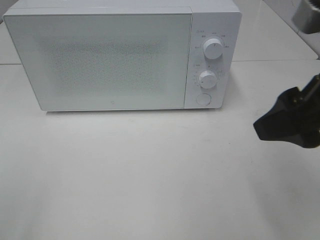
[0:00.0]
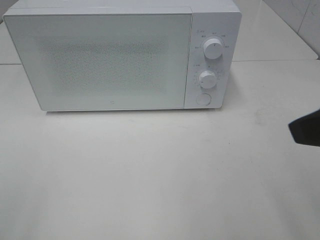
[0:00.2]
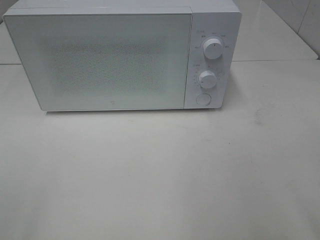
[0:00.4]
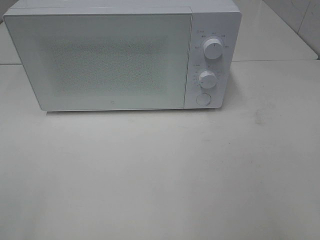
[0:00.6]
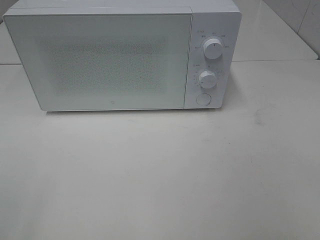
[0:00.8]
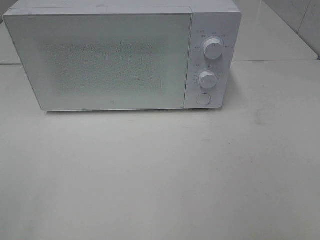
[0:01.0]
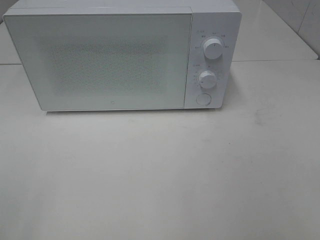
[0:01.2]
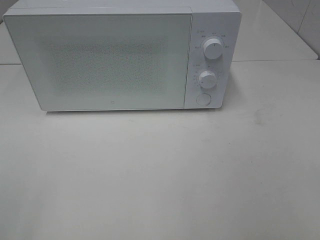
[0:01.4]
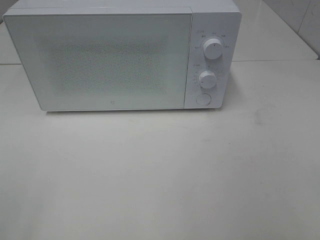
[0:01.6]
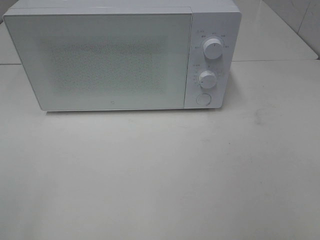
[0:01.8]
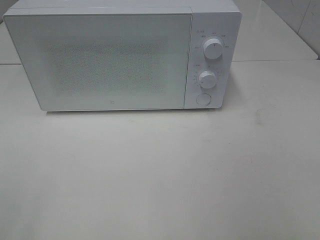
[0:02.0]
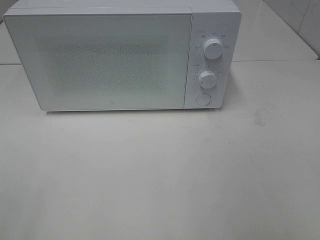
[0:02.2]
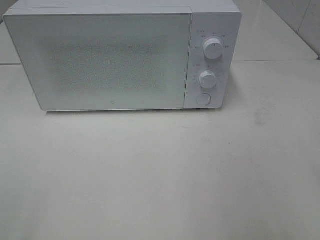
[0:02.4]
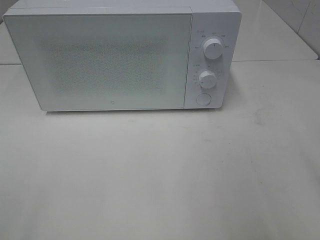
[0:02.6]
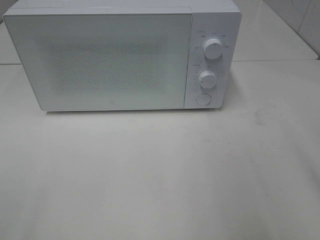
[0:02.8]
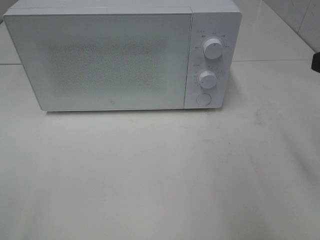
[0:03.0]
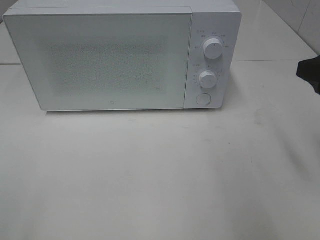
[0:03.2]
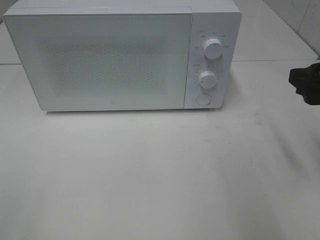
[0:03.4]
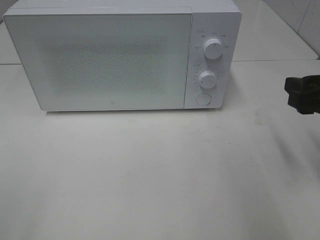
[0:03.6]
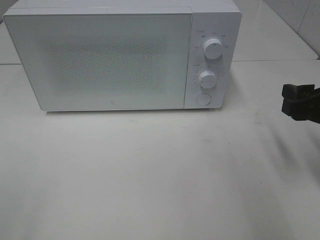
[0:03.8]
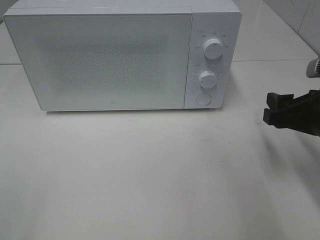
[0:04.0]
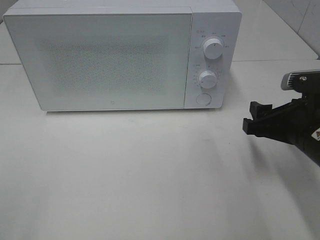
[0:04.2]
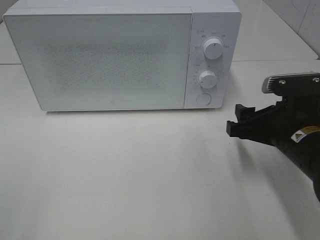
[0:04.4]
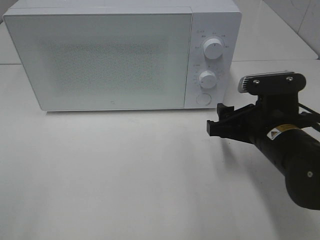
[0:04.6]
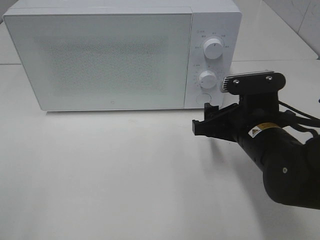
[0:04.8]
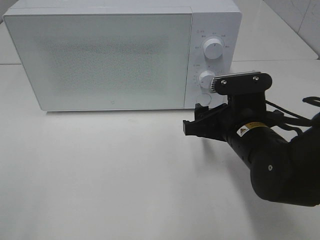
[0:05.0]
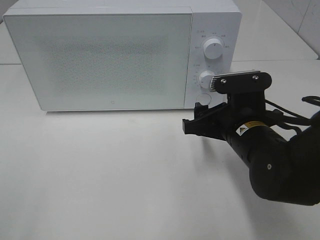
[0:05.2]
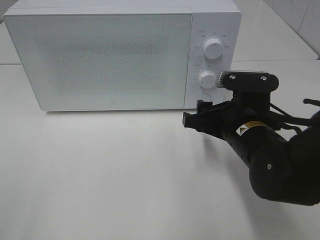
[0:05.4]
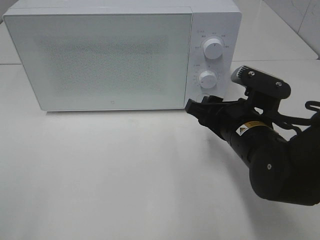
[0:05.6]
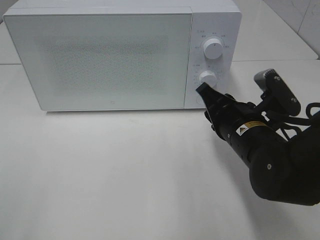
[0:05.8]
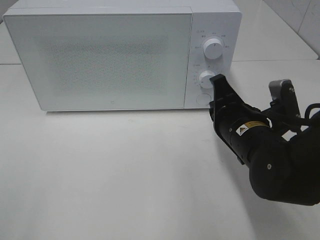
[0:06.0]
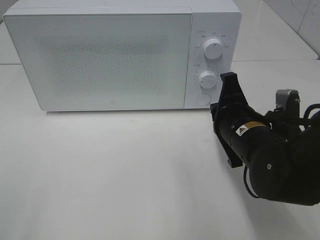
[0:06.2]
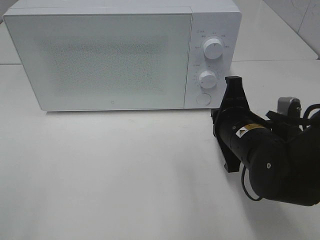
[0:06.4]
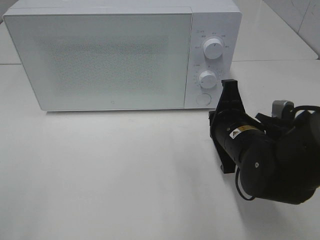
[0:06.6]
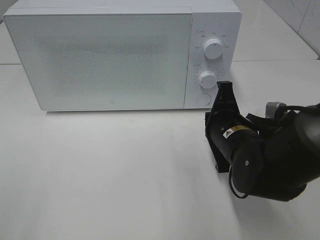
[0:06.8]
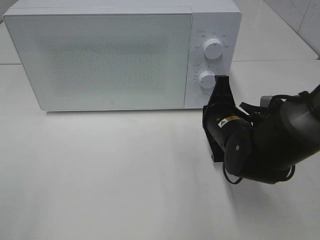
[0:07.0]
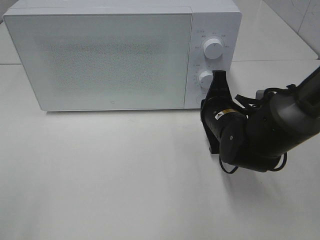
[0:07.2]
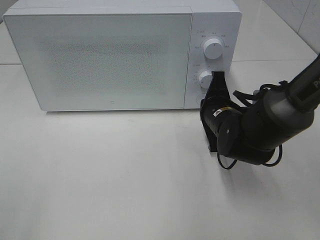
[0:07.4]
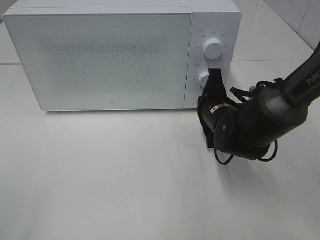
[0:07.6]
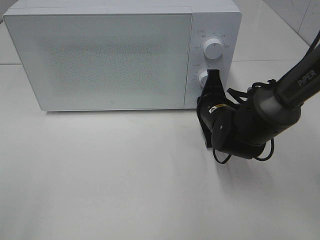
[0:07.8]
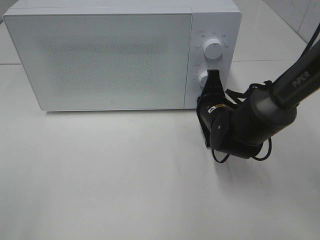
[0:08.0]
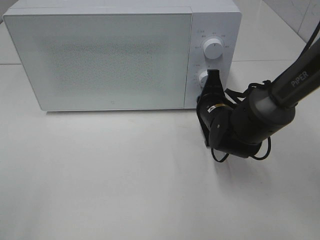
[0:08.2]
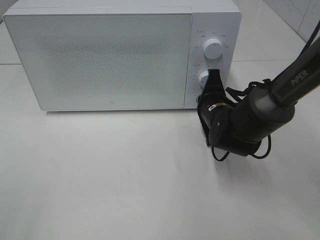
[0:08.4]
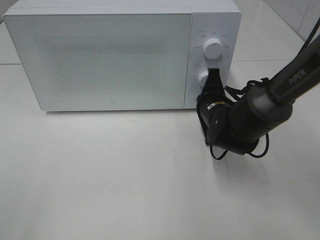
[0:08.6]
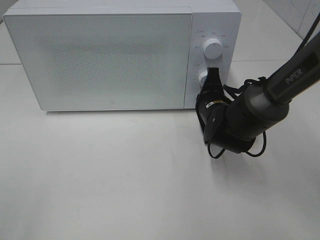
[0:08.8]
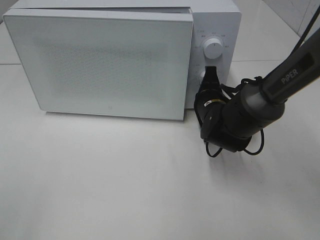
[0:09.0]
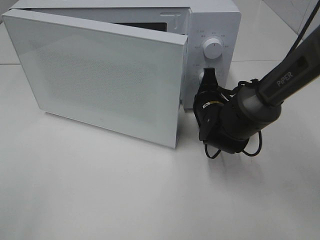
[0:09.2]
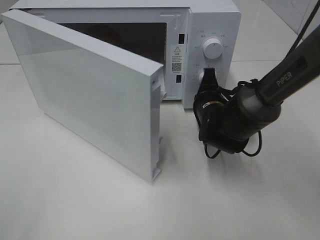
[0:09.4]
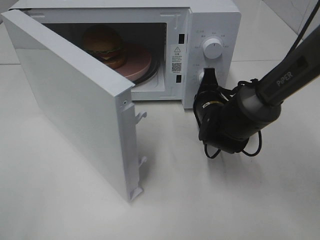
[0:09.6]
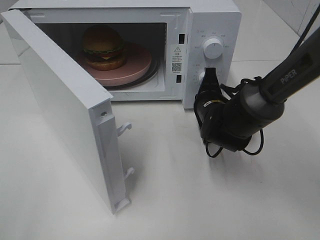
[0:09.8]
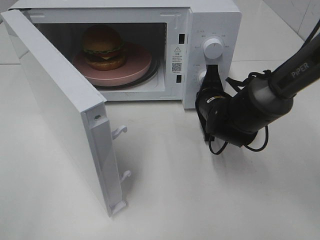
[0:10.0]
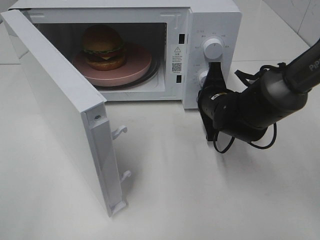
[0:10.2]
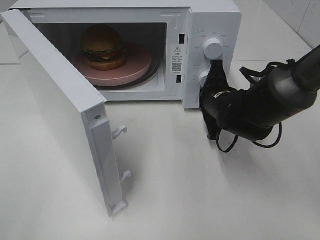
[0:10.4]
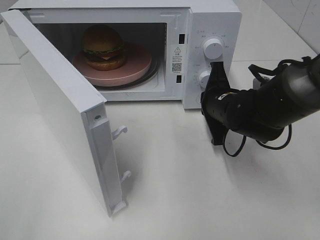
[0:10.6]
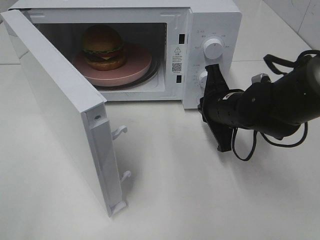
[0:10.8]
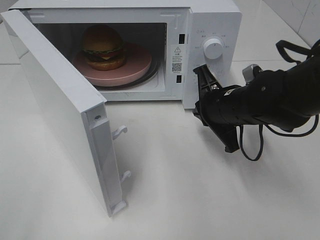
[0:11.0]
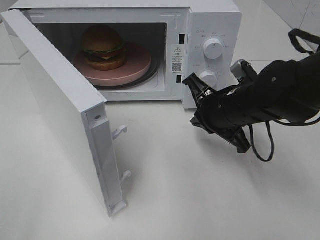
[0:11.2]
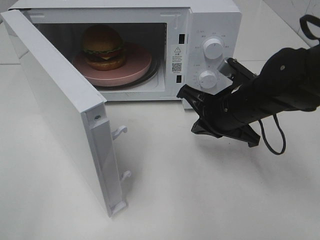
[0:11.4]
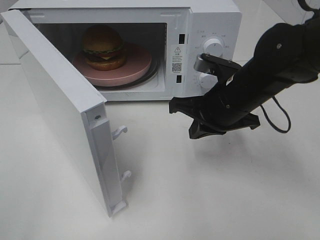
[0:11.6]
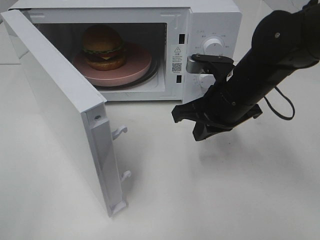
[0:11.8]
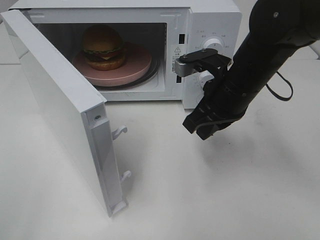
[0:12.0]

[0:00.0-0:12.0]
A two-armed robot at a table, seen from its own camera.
Task of the whole recording: Heat the burger.
Step, 0:00.0 to 0:10.4: Right hand: press the switch.
0:00.0 to 0:01.6: The right gripper travels backward and to the right by some 20 cm.
0:03.0 to 0:04.4: The right gripper shifts some 15 cm downward and to the left.
0:04.4 to 0:06.0: The right gripper goes about 5 cm to the left, and closes.
0:06.0 to 0:07.6: The right gripper is displaced forward by roughly 10 cm.
0:07.6 to 0:09.0: There are only small adjustments of the grippers.
0:10.4 to 0:12.0: The right gripper heads upward, covering some 10 cm.

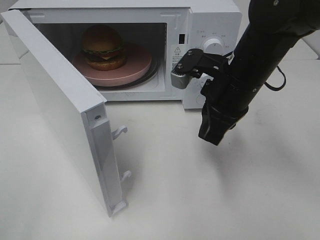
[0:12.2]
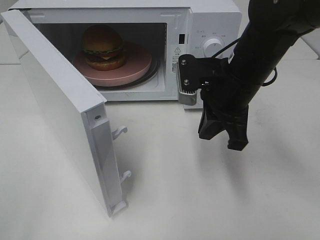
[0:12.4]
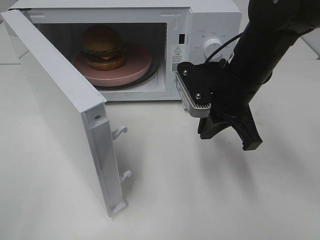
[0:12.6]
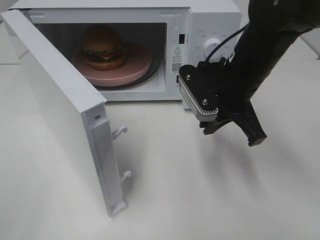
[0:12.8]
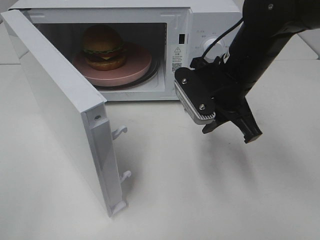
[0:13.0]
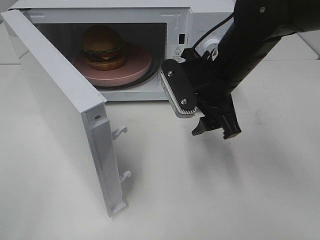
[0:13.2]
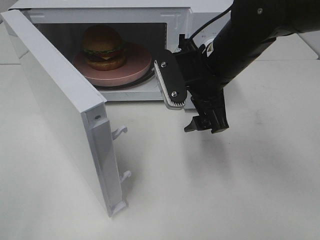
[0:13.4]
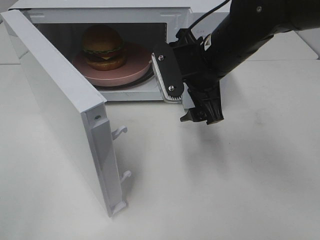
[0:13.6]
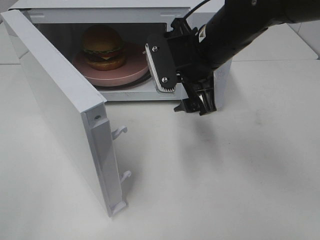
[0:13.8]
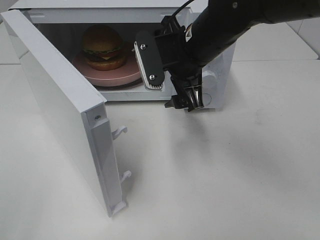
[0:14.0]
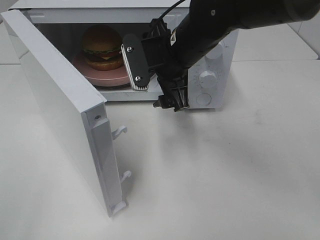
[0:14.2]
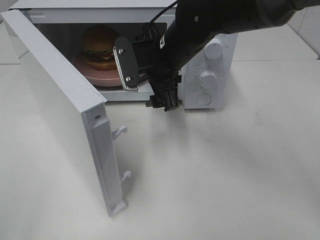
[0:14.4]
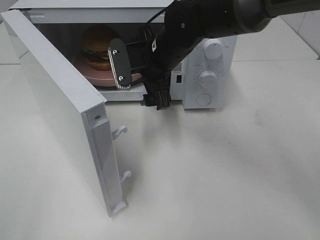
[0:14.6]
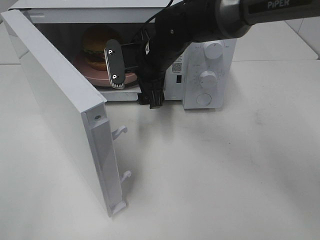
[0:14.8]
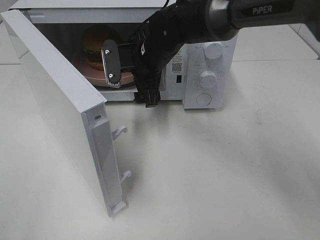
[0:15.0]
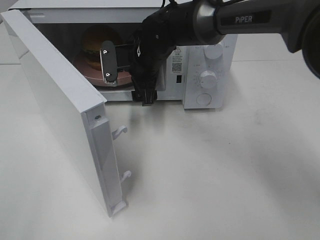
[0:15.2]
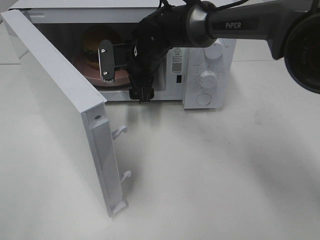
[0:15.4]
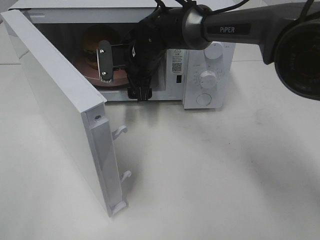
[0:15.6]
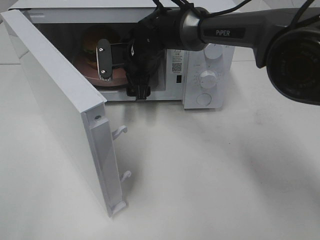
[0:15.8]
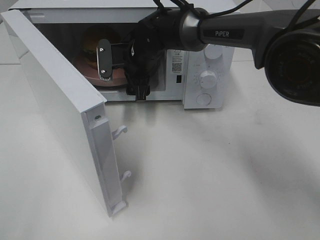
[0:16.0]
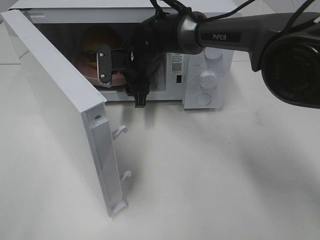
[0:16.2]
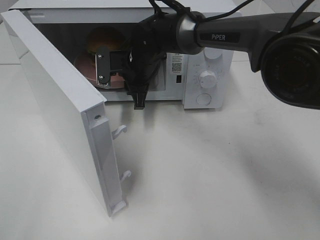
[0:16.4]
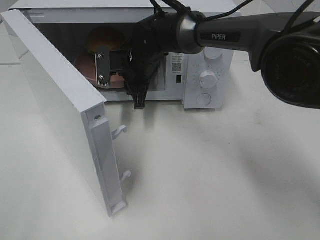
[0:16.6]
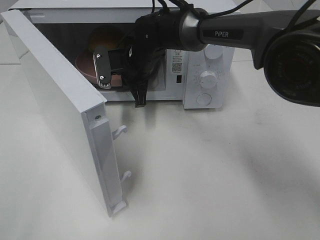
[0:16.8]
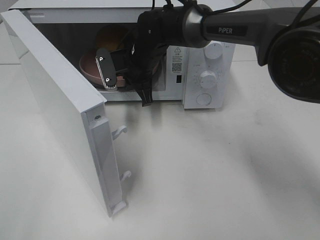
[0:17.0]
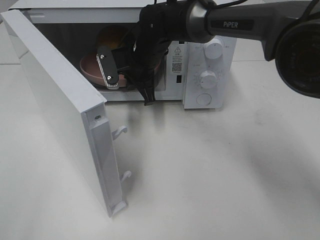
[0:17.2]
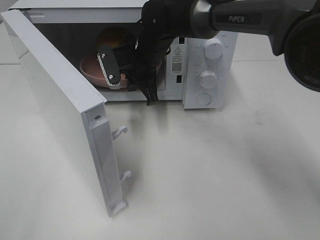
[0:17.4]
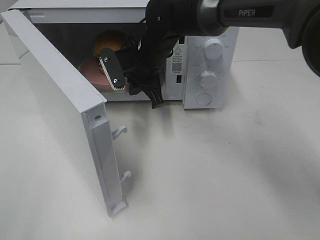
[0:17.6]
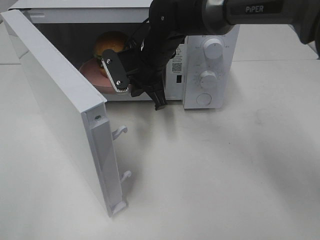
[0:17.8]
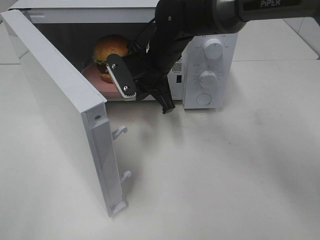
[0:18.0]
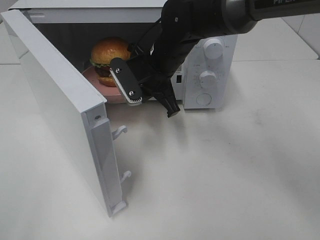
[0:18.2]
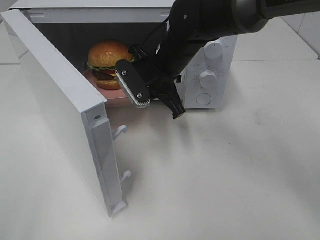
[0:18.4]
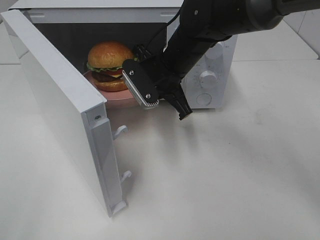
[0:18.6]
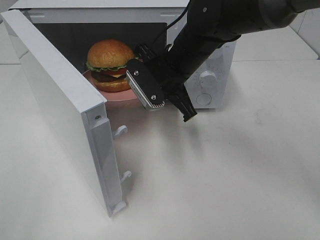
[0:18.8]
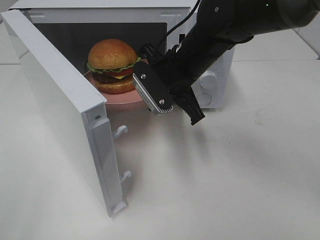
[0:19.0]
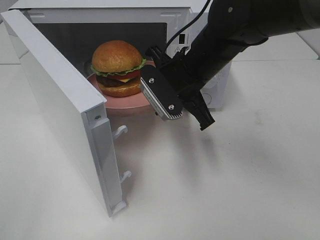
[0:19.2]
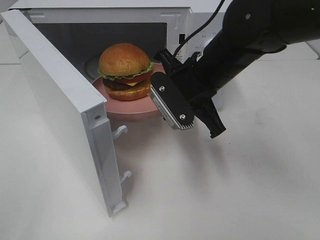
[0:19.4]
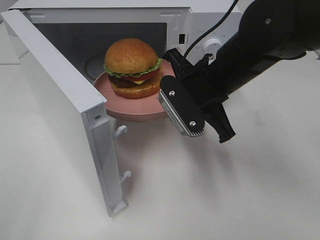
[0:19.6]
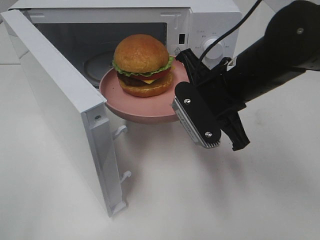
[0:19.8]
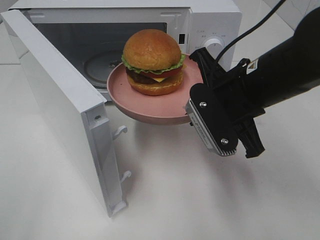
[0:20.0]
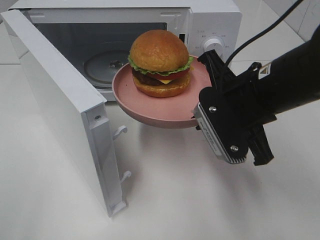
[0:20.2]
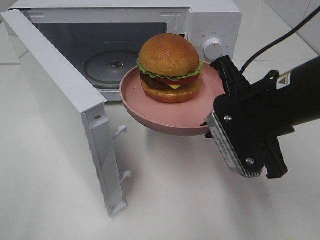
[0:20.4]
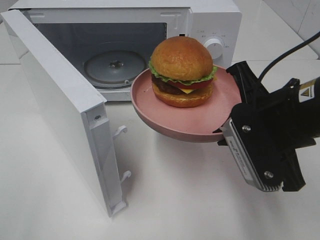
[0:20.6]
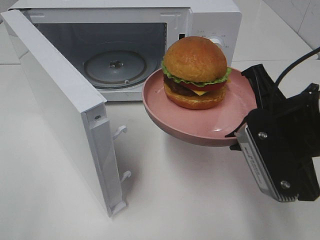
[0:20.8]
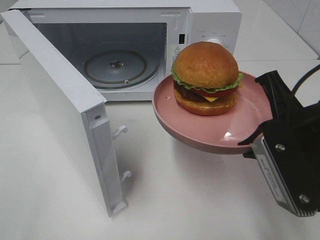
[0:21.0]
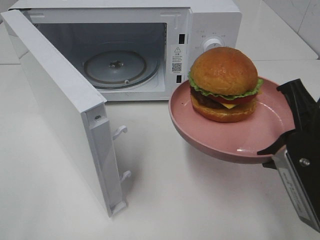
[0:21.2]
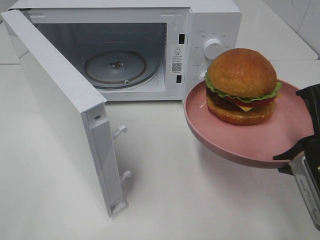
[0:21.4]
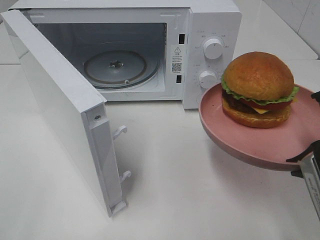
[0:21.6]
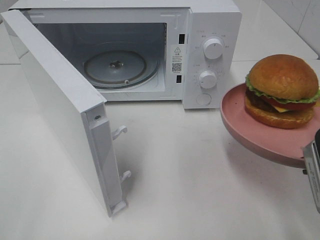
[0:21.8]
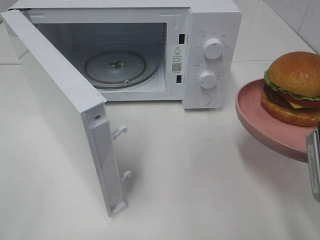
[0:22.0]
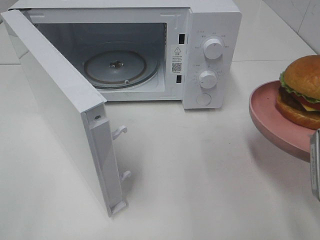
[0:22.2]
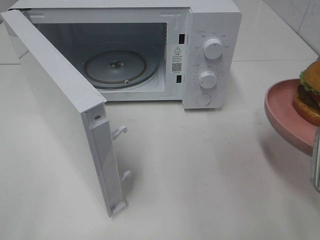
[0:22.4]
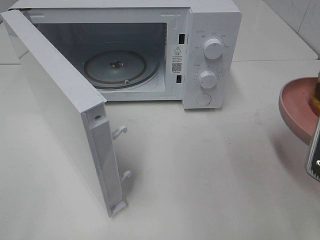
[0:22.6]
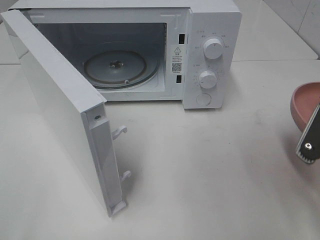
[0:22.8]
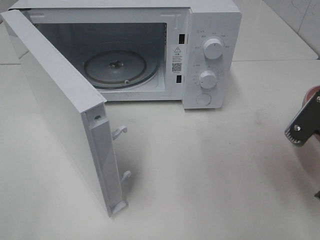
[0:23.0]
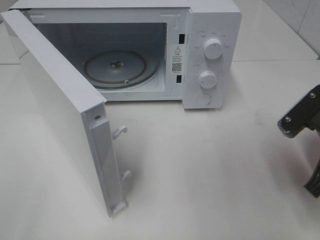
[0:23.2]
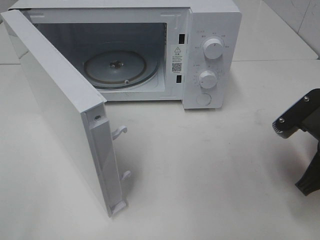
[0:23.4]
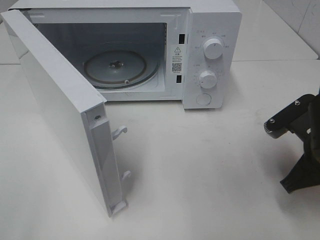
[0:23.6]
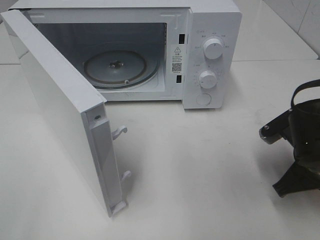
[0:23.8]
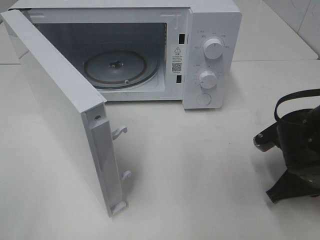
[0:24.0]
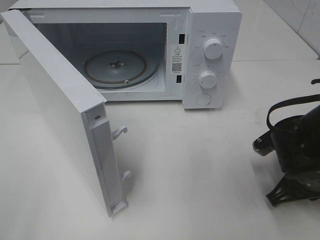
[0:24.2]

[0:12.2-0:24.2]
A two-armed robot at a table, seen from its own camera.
Task of the whole recording: Heat the burger.
Step, 0:12.2 to 0:16.8: Right hand: grab the plate with the hamburger.
0:12.2 to 0:13.8: The right gripper shifts by about 5 cm, and opens up.
0:13.8 to 0:15.2: The right gripper travels forward, to the left and downward by roughly 15 cm.
0:15.2 to 0:16.6: The right gripper closes up.
0:16.6 to 0:18.2: The right gripper shifts approximately 5 cm backward.
0:18.2 to 0:19.8: The right gripper is displaced backward and to the right by approximately 15 cm.
0:19.8 to 0:21.2: The right gripper is displaced backward and to the right by roughly 15 cm.
0:21.2 to 0:22.6: The right gripper shifts by approximately 5 cm.
0:22.6 to 0:24.2: The right gripper travels downward and forward by about 15 cm.
